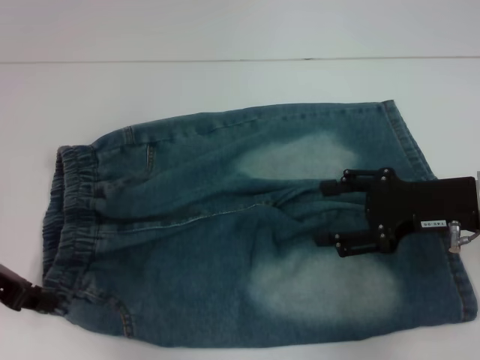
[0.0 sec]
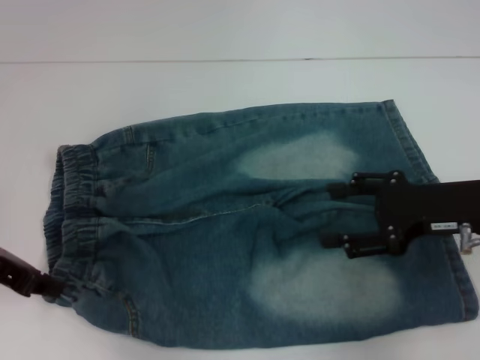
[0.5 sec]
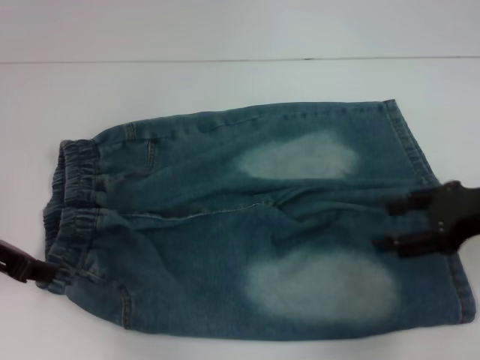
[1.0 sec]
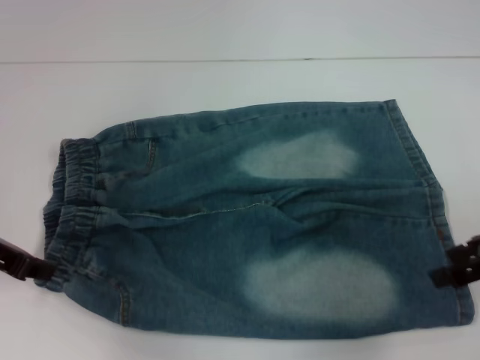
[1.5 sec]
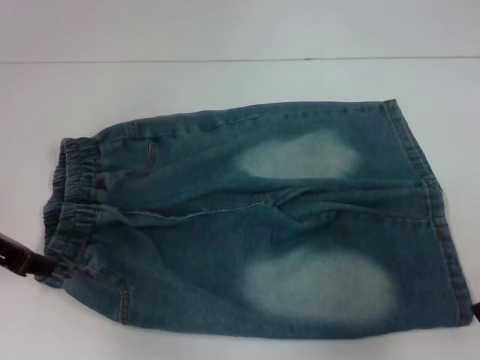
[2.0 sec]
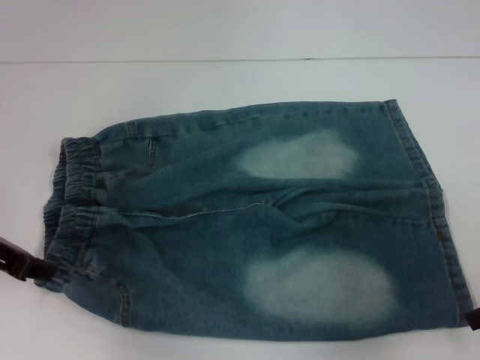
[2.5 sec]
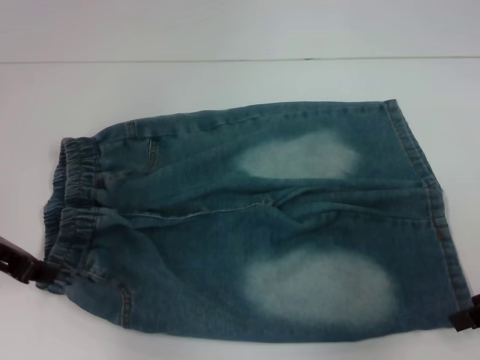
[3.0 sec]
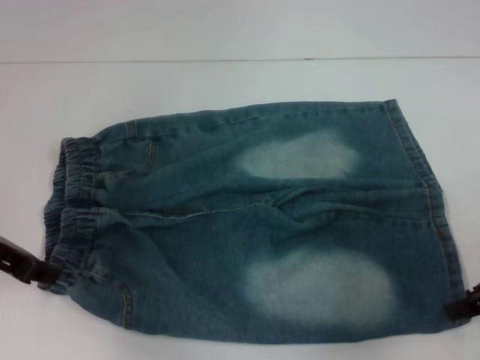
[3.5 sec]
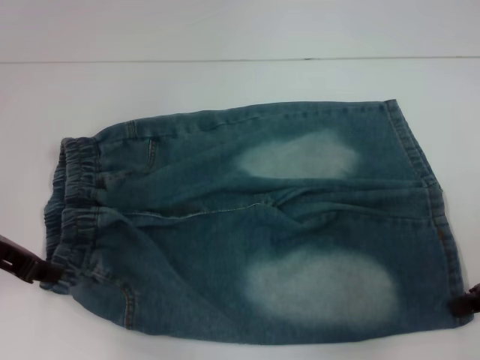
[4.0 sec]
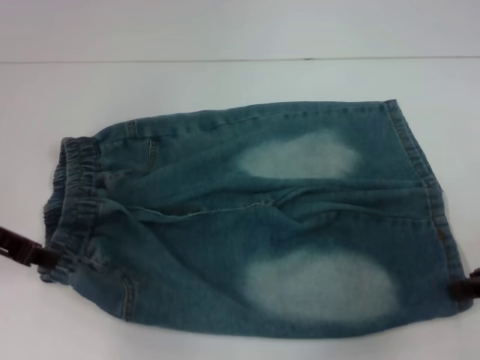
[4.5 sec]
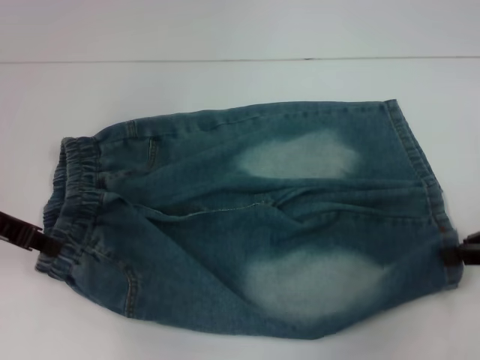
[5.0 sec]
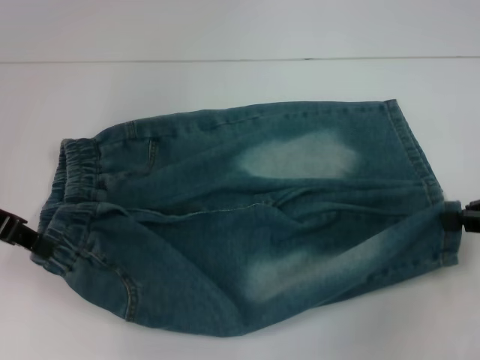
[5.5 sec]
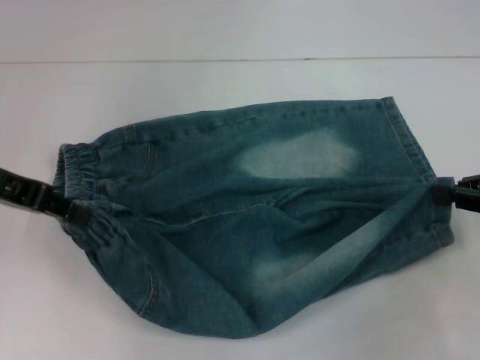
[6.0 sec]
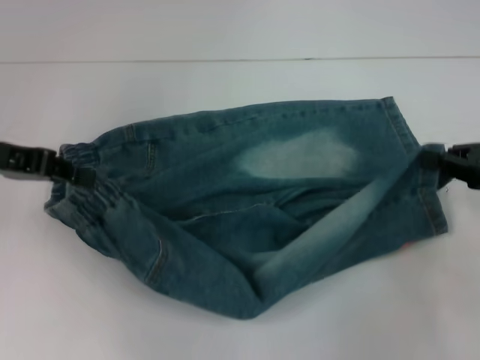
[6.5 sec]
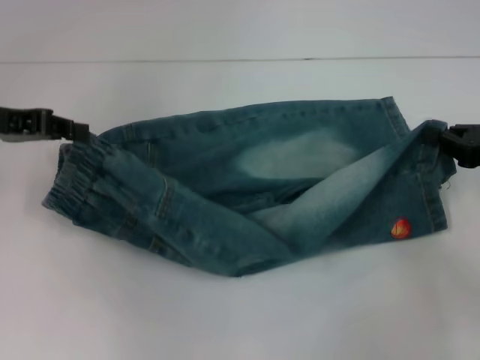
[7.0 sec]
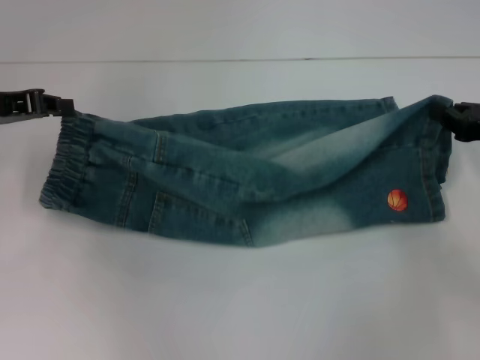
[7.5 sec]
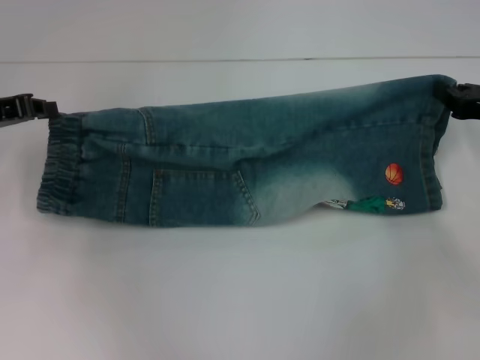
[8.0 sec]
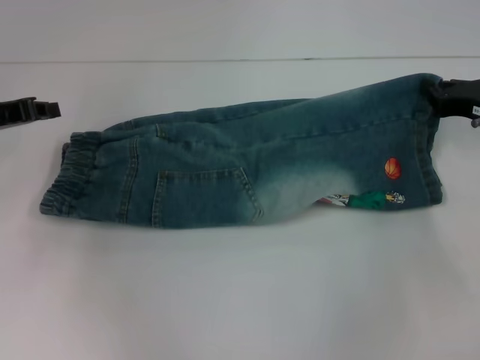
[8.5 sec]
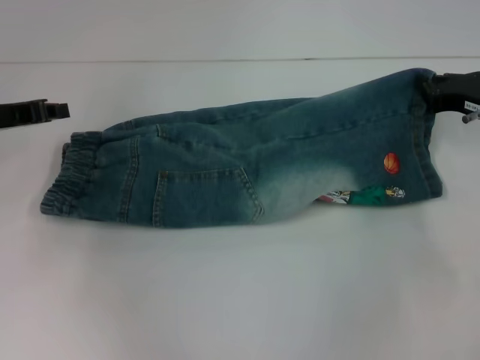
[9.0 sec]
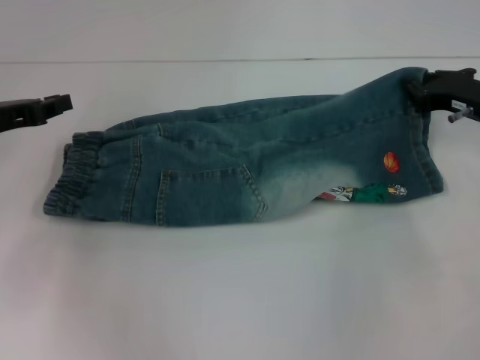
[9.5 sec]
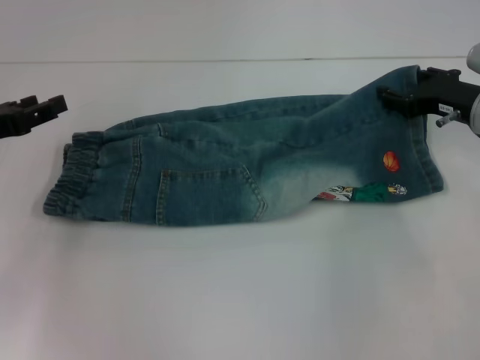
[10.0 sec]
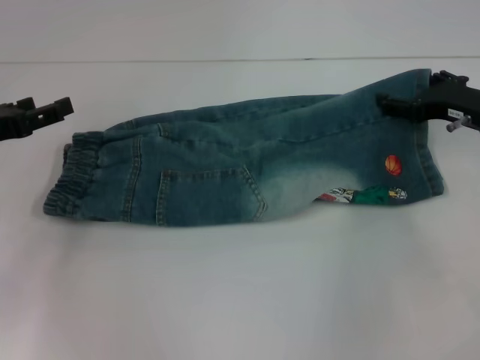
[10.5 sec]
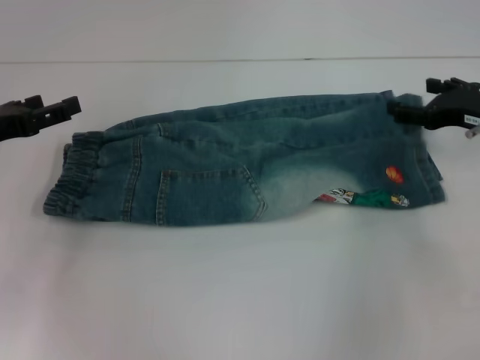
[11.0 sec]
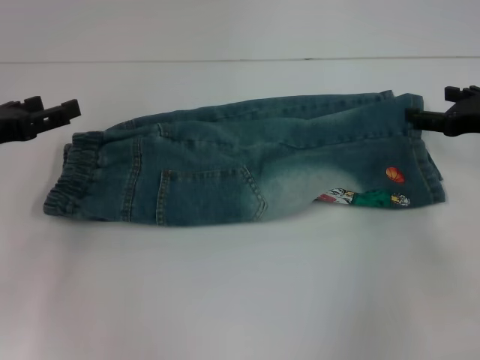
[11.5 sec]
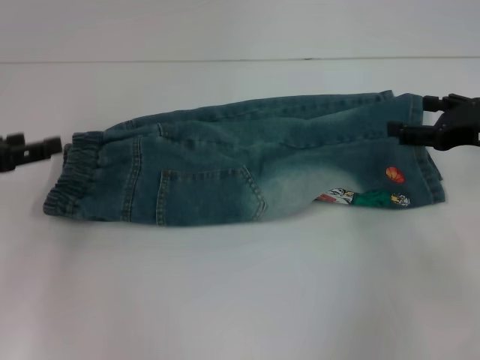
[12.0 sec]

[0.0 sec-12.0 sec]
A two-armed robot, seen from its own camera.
Step, 0.5 sec to 4.0 sec: Grab the lower right pant leg with your right hand.
Step, 4.5 sec to 8.0 sec: Fold upward with your left hand.
Step, 8.5 sec to 11.0 sec: Fold upward with your right hand.
0.0 sec to 2.0 sec: The right gripper is displaced to the right by about 10 cm.
2.0 sec to 4.0 sec: The right gripper closes.
4.0 sec to 6.0 sec: The left gripper is displaced upward by some 5 cm.
6.0 sec to 8.0 sec: The left gripper shifts by roughly 5 cm. The right gripper travels forward by approximately 5 cm.
8.0 sec to 10.0 sec: The right gripper heads to the left, covering some 5 cm; the left gripper shifts by some 5 cm, and opens up.
10.0 sec to 12.0 sec: The left gripper opens its fingers; the right gripper shifts roughly 5 cm backward, and opens.

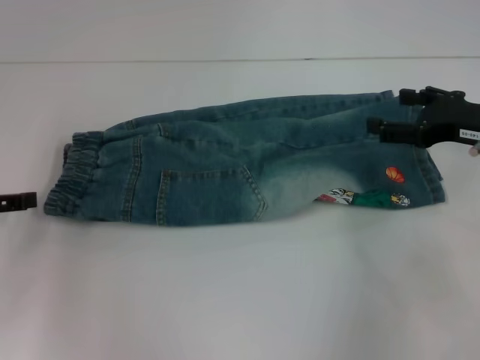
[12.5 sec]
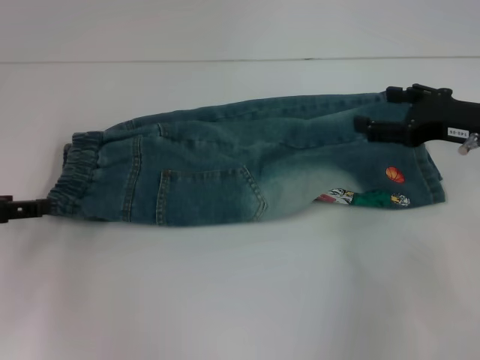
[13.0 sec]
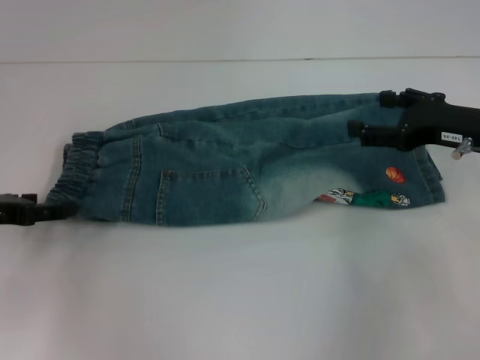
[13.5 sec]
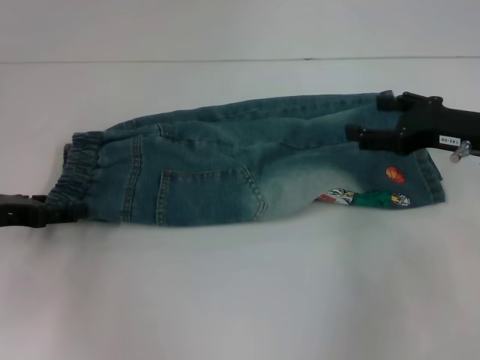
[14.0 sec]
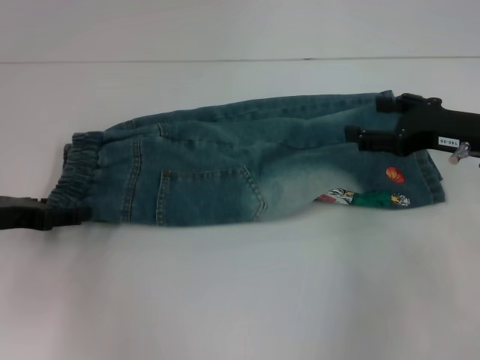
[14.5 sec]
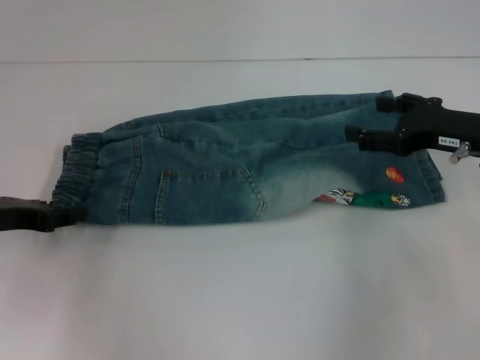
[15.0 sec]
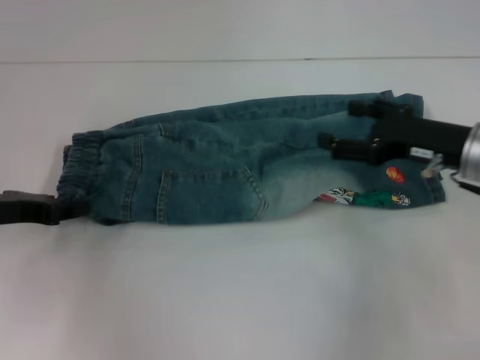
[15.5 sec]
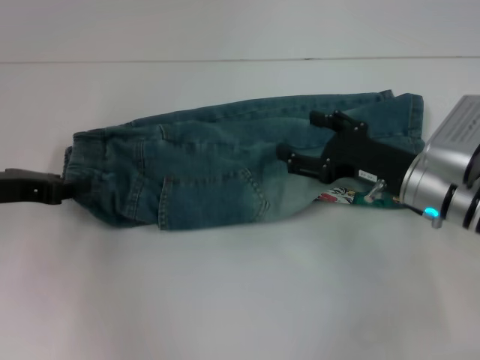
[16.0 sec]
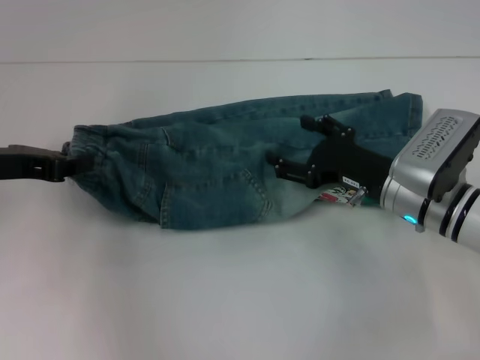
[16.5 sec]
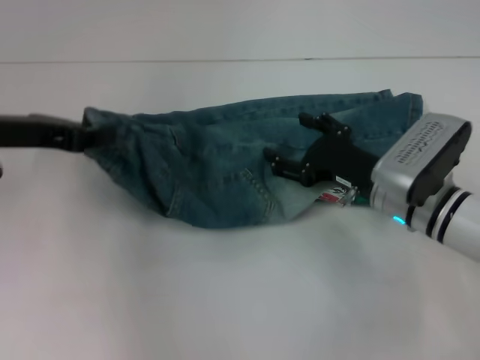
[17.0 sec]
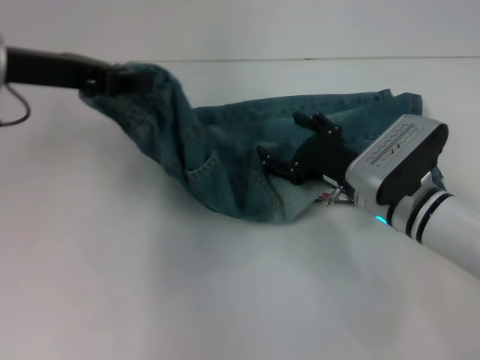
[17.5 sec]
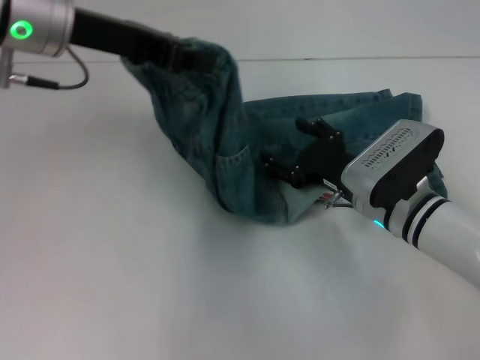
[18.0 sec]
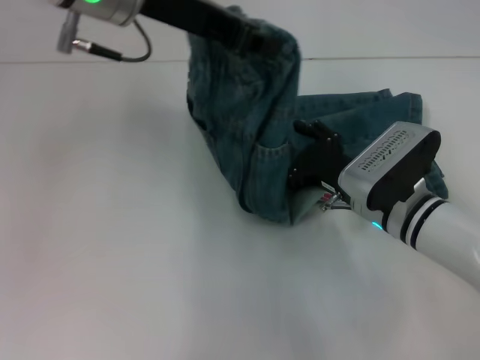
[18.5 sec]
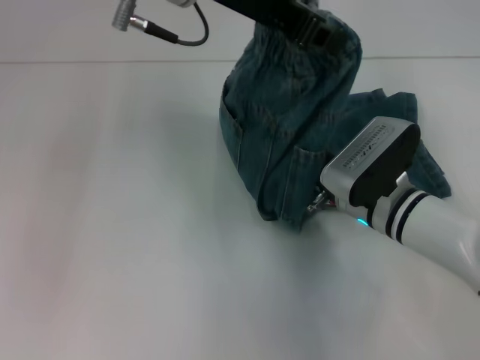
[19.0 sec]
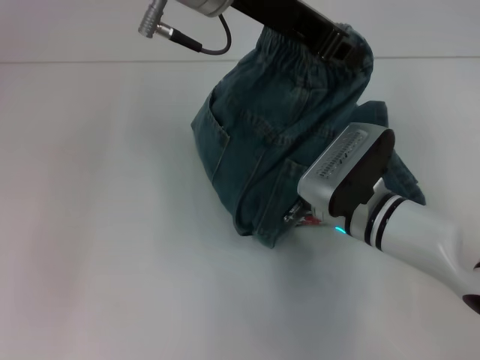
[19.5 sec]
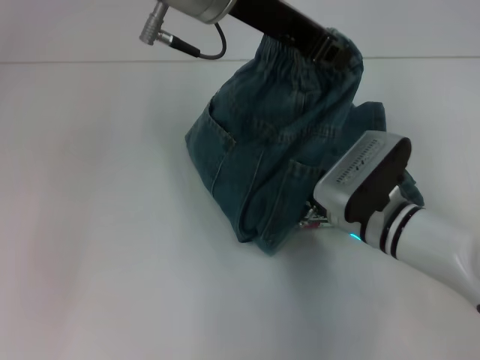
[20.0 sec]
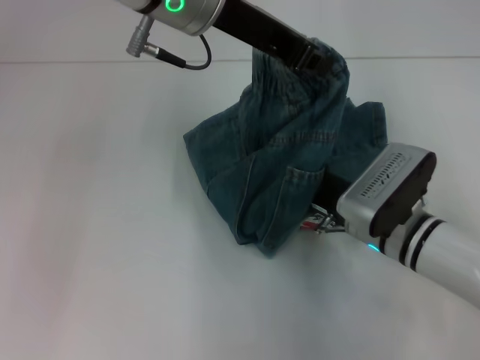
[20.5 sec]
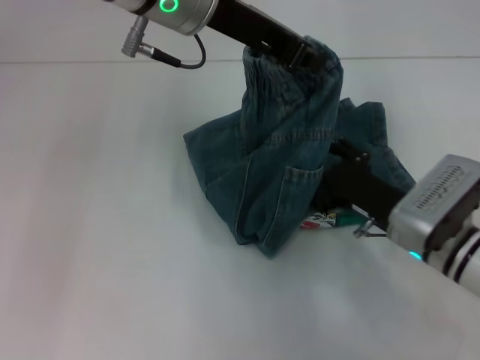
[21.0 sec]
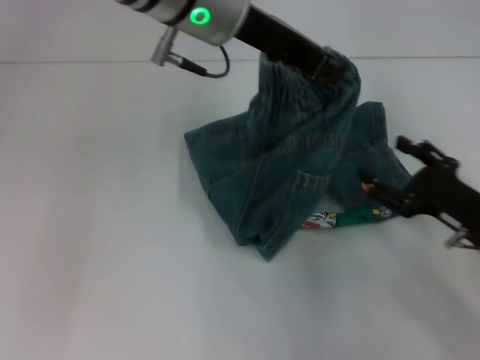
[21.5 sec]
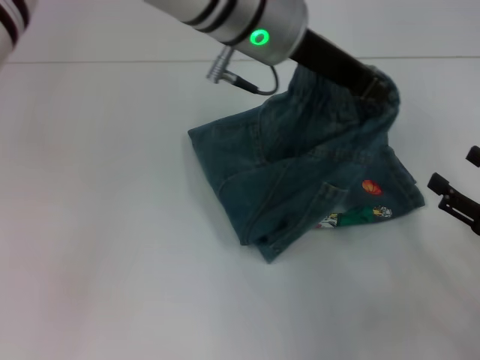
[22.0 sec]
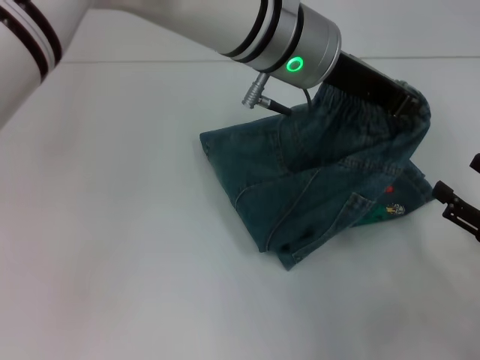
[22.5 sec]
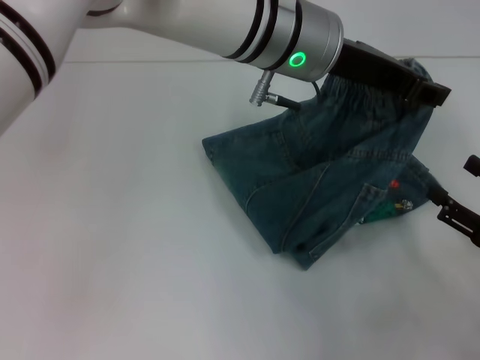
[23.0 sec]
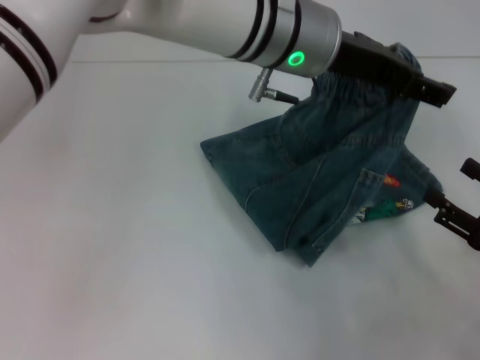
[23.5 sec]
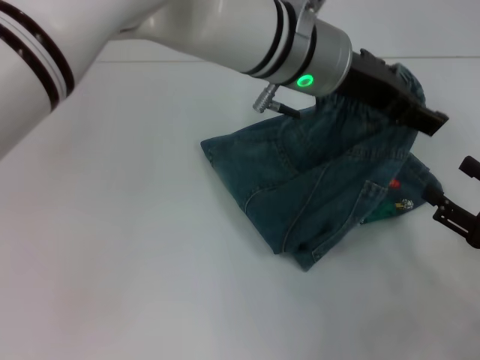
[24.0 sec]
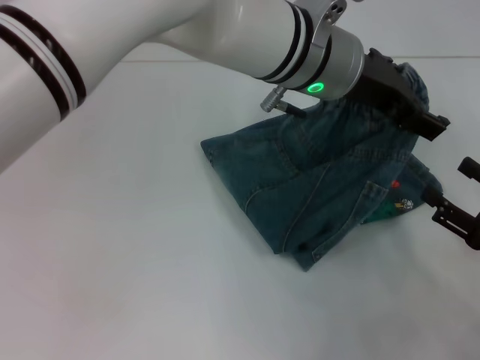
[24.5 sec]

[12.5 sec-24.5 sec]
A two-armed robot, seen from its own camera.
Step, 12.5 sec to 15.0 sec: Hold the waistband with your left hand.
Step, 15.5 sec to 20.0 sec: Press the middle of the pants with your right hand.
12.5 sec to 14.5 sec: The left gripper changes place by some 5 cm.
14.5 sec to 16.5 sec: The right gripper shifts some 10 cm to the left and downward, while the left gripper moves upward, roughly 5 cm, and closes up.
16.5 sec to 18.5 sec: The left gripper goes approximately 20 cm to the right and upward.
18.5 sec to 20.5 sec: The left gripper shifts approximately 5 cm to the right.
20.5 sec to 22.5 sec: The left gripper moves to the right, about 10 cm, while the right gripper heads to the right and backward, covering about 20 cm.
22.5 sec to 24.5 sec: The left gripper opens up.

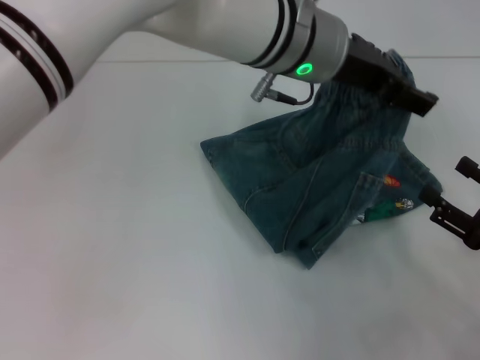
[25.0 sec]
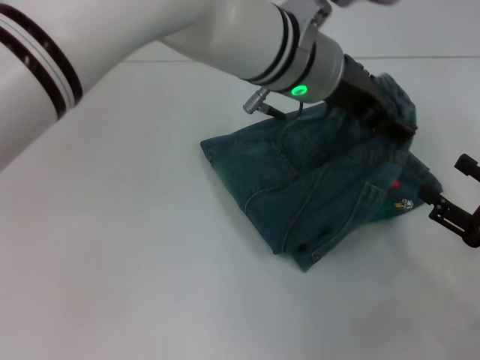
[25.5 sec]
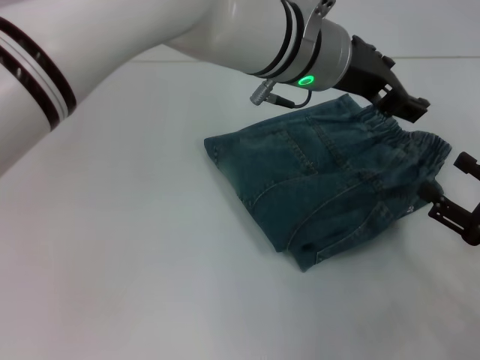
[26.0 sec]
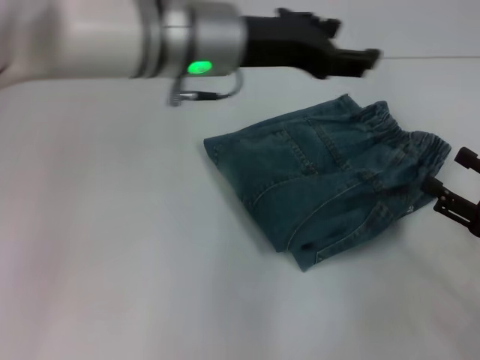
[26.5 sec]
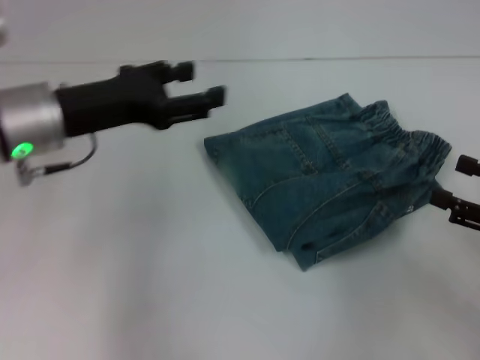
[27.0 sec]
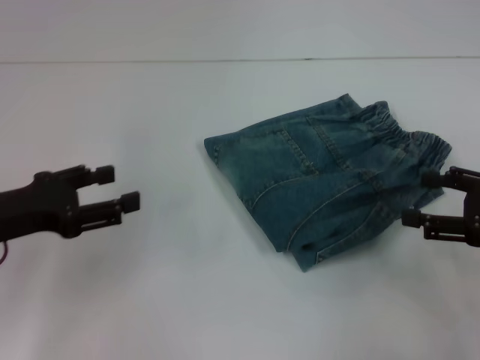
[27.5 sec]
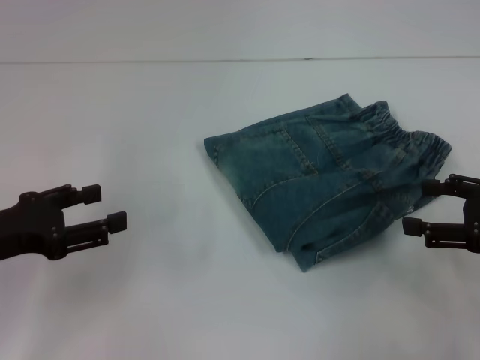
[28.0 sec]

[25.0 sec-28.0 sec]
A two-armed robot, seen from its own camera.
25.0 sec to 26.5 sec: The left gripper goes approximately 10 cm to the left.
26.5 sec to 28.0 sec: The right gripper travels upward by approximately 5 cm. The left gripper heads to the left, backward and downward, covering some 30 cm.
